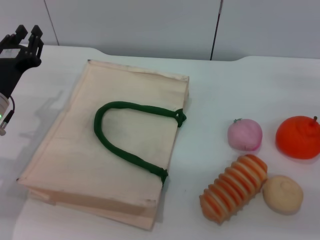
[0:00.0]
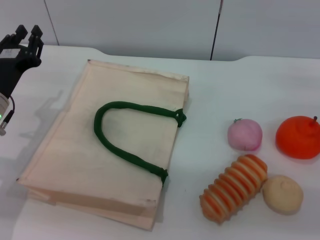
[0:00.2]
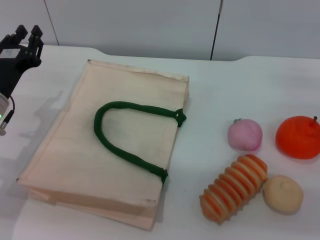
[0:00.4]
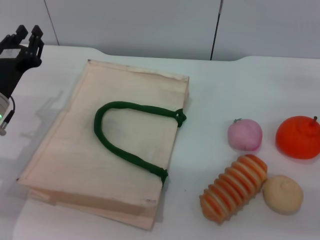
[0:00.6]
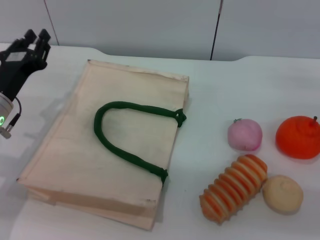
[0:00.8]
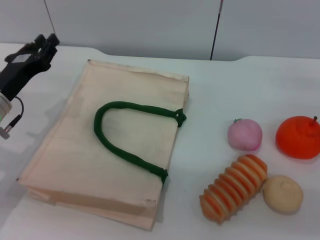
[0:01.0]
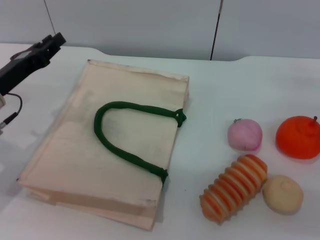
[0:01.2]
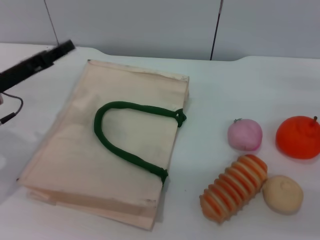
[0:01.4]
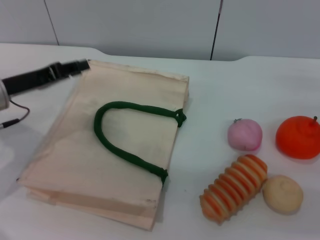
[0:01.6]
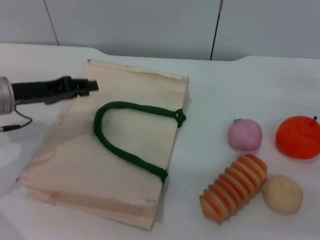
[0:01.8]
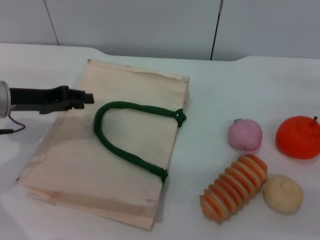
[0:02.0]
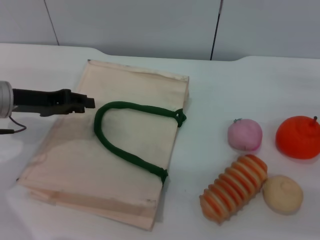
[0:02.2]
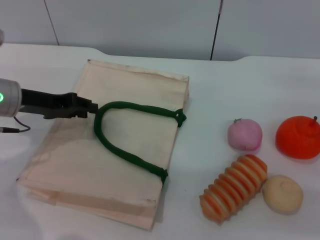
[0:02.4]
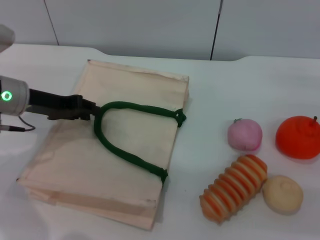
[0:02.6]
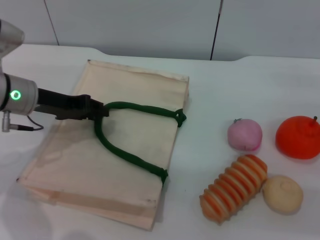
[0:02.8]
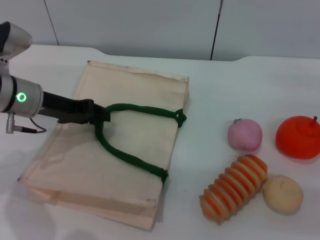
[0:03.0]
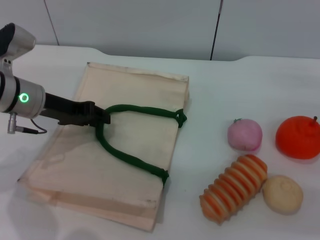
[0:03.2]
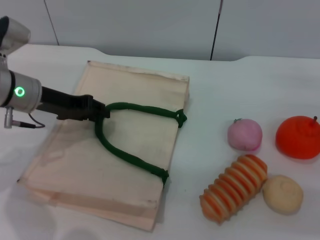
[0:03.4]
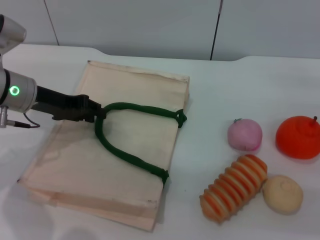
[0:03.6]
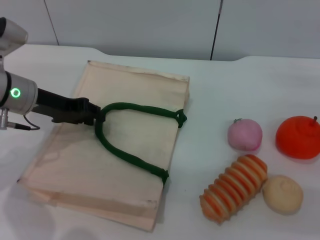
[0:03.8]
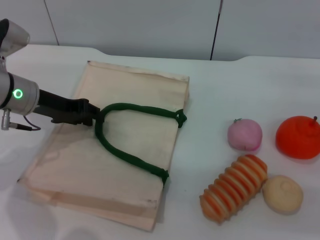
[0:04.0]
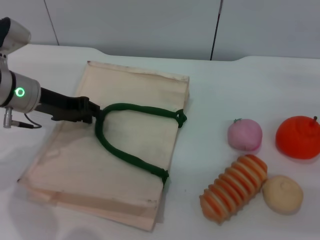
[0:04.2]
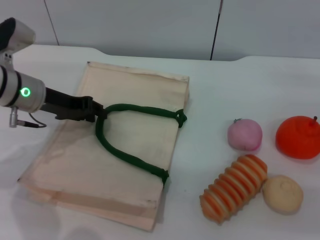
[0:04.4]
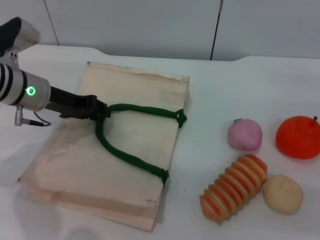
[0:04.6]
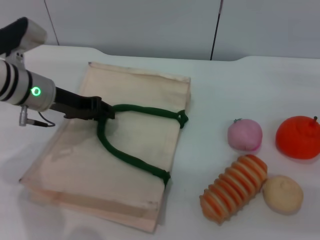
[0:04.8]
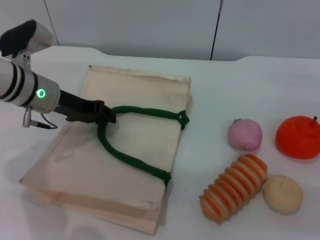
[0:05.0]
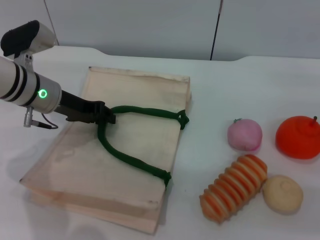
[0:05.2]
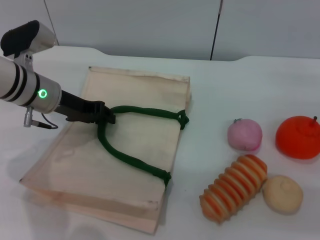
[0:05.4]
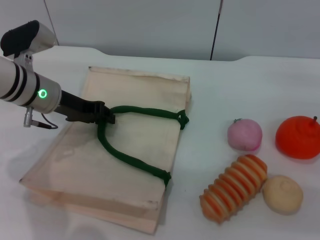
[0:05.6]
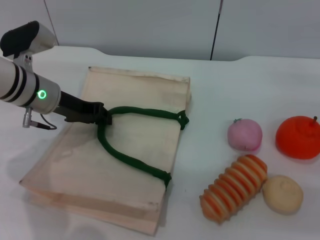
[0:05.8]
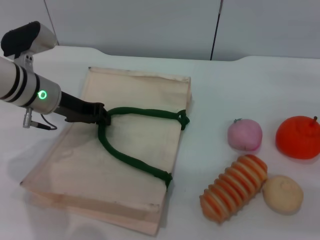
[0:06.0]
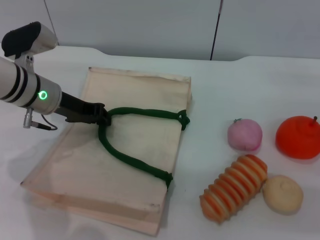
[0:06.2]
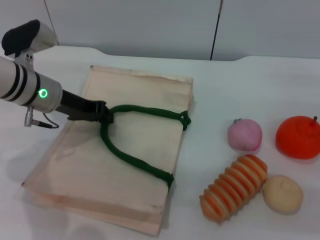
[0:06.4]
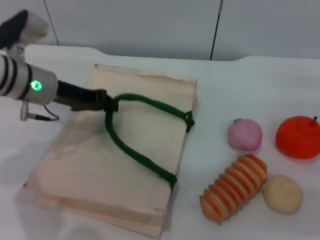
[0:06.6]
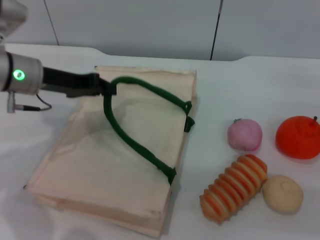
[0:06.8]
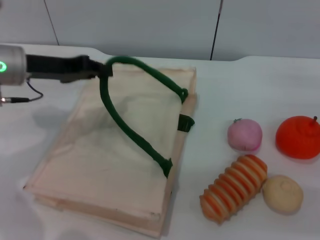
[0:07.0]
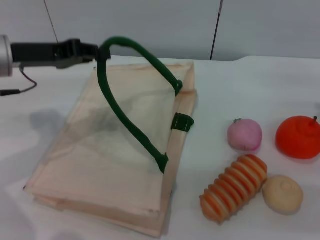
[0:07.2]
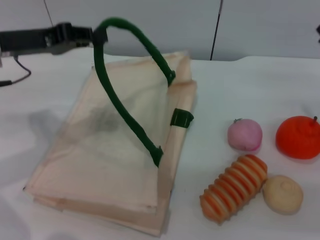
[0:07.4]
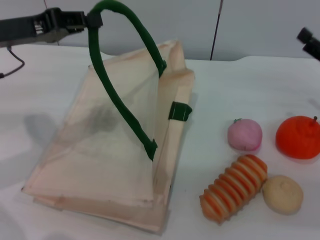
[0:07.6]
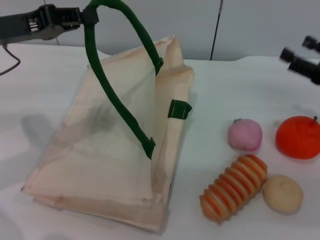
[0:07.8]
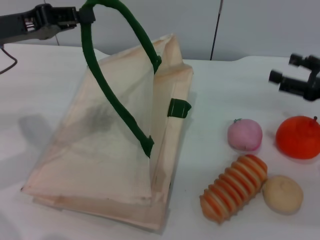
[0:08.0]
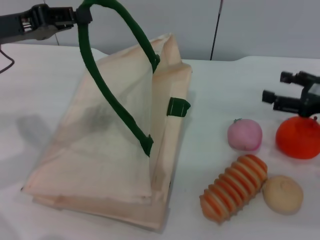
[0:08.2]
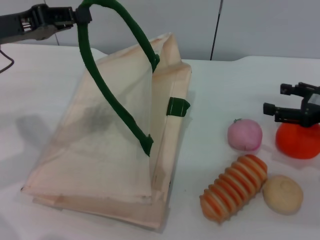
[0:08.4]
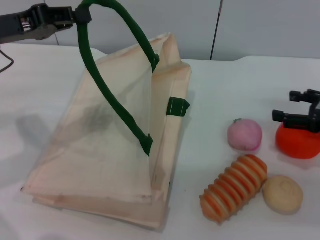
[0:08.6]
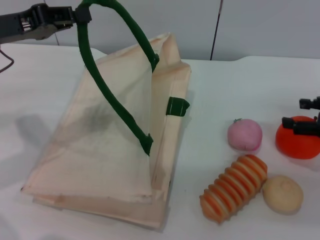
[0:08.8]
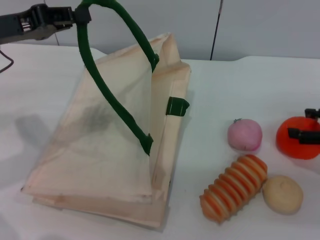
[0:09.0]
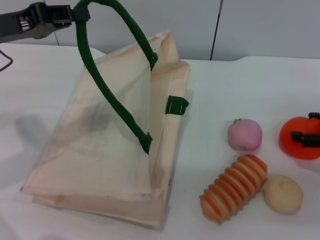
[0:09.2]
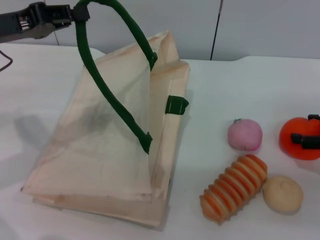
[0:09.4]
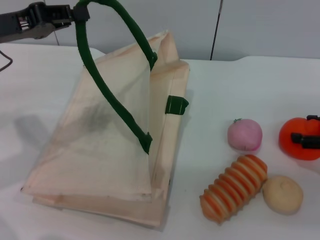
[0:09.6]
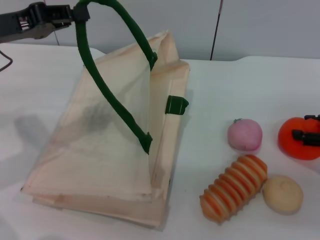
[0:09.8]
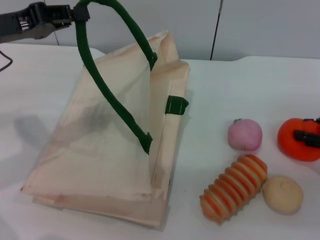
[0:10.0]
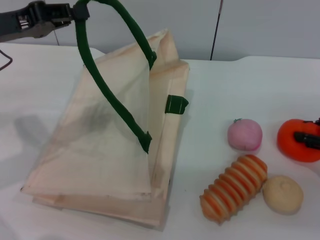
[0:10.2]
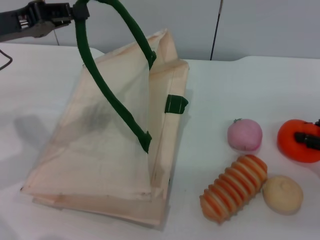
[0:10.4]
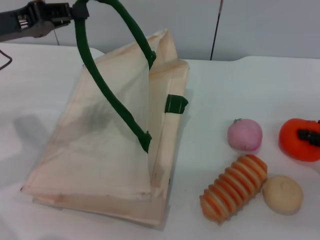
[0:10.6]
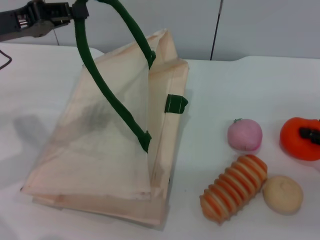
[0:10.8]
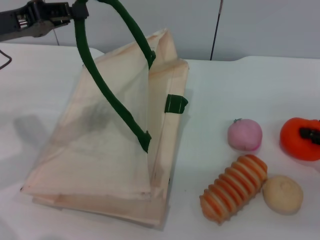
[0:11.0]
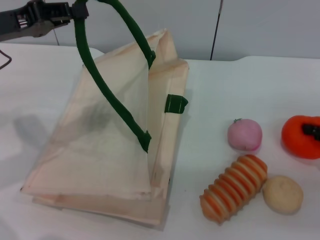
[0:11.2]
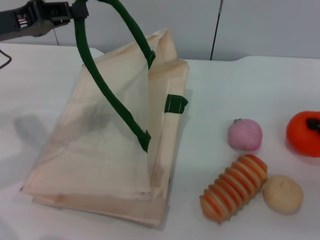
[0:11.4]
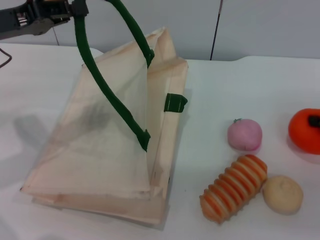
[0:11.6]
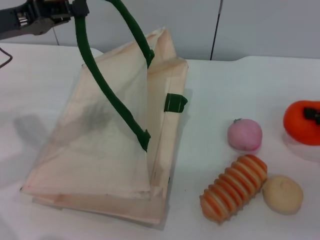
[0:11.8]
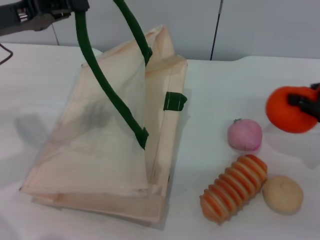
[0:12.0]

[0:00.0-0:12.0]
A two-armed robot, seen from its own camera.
Task of the whole recording: pick up the orange from the table and place it in the white handbag.
Step, 0:00.0 to 0:07.2: Lift the woven bag with the left gripper to open it.
0:00.0 to 0:01.6: The left gripper shifts by about 5 cm.
0:01.6 to 0:03.0: The left gripper changes place by approximately 5 cm.
0:03.0 to 0:04.4: Both grippers stay about where they are.
0:04.4 to 0:06.0: The left gripper closes up.
0:06.0 to 0:07.6: The left gripper heads upward and to the left, covering approximately 10 cm.
0:09.0 to 0:10.4: The right gripper closes up.
0:10.4 to 0:12.0: The grippers make only small movements.

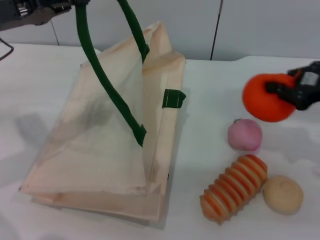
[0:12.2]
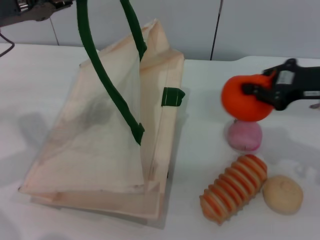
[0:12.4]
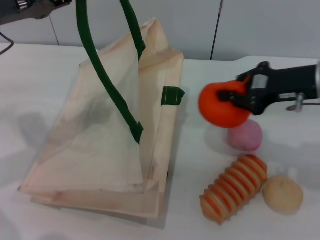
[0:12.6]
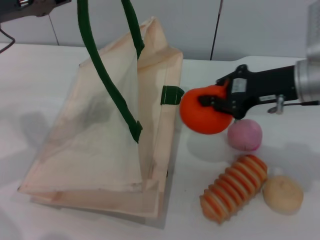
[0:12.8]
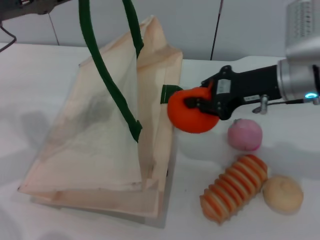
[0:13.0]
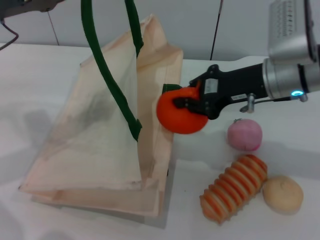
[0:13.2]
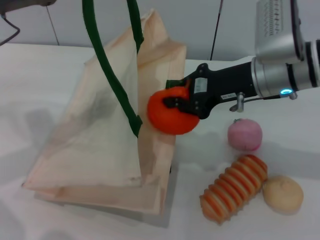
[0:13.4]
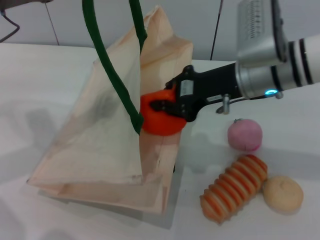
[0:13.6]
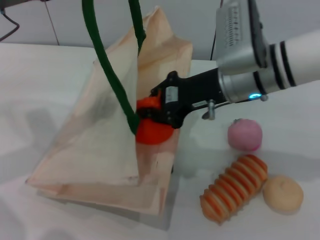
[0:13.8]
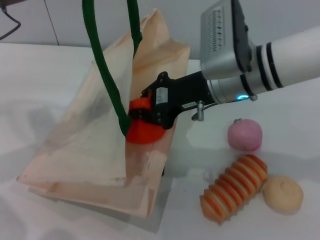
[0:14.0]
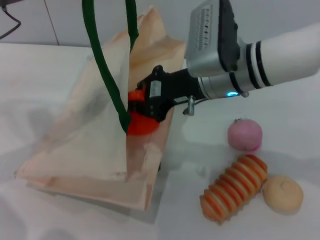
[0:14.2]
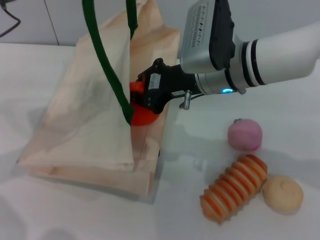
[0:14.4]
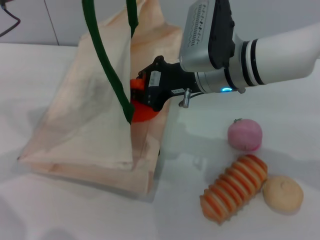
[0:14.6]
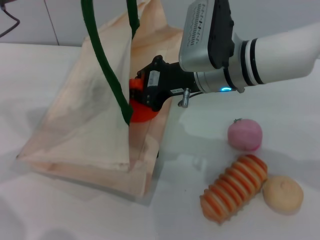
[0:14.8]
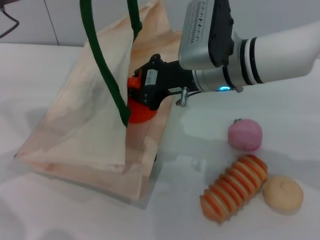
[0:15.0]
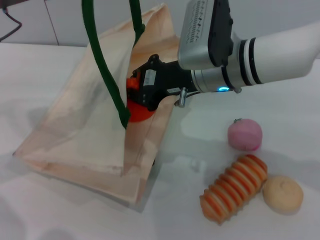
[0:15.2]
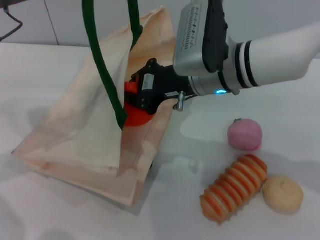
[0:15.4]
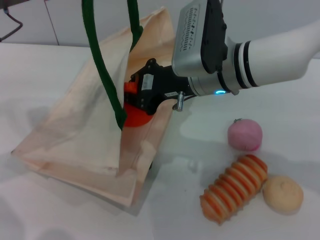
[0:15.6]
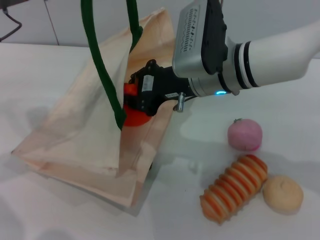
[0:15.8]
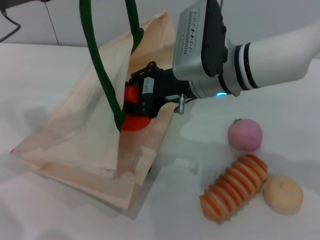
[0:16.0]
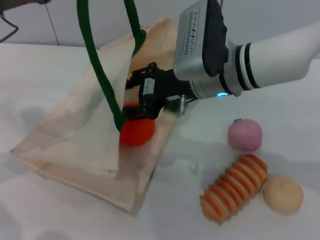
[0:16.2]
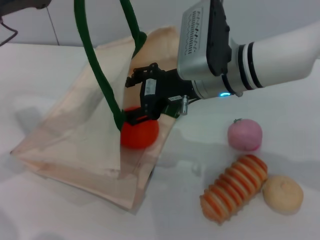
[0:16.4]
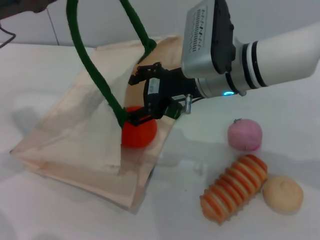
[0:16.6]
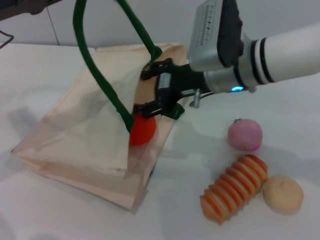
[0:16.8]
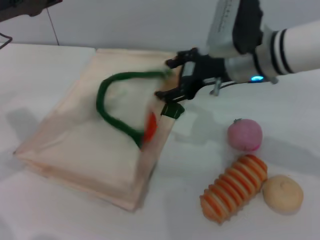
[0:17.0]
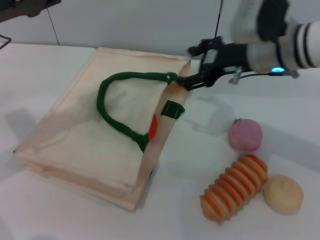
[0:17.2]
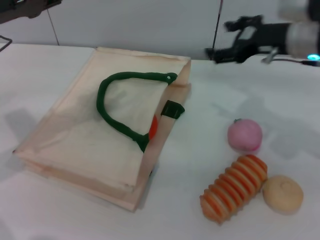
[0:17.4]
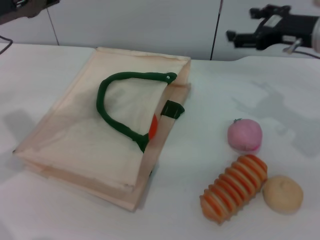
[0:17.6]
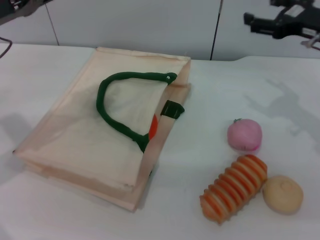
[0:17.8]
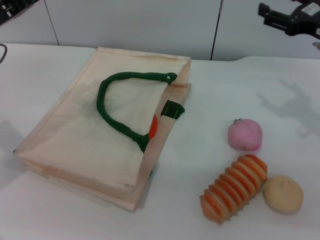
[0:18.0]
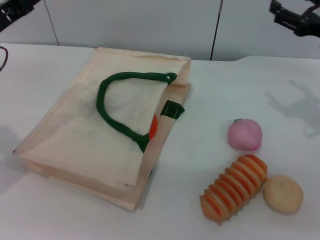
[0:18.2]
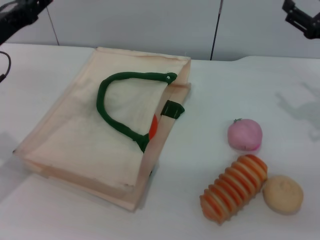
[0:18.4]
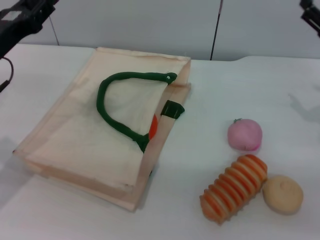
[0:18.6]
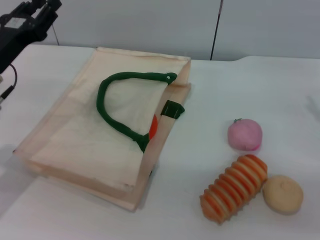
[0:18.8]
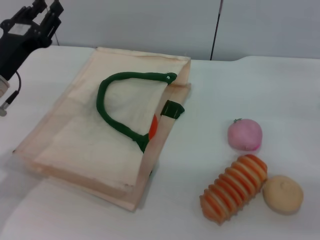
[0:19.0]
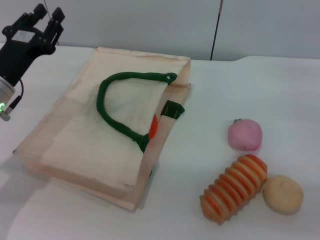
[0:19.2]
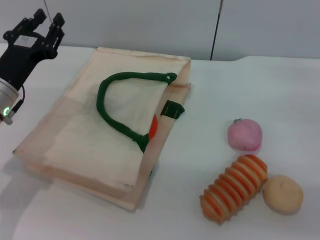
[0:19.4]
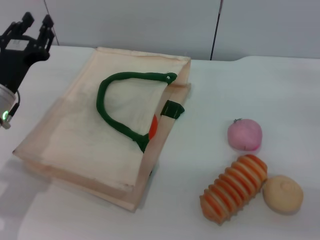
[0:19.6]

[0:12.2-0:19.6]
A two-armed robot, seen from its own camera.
Task of the whole recording: pick up the orange from the table and place it in the white handbag.
Step, 0:12.2 to 0:17.0: Place the orange into the woven bag with the right gripper.
Step, 0:17.2 to 0:18.6: Lower the woven bag with the left gripper to close it.
0:12.2 to 0:13.6: The right gripper is displaced to the left by roughly 15 cm.
0:13.6 to 0:15.2: The right gripper shifts some 5 cm to the left.
0:15.2 to 0:16.6: The right gripper opens.
0:16.6 to 0:18.2: The left gripper is displaced downward by about 5 cm, and opens. The right gripper heads to the right, covering approximately 20 cm.
0:18.2 to 0:19.6: The right gripper goes about 10 cm to the right, downward and backward; the left gripper heads downward, covering about 10 cm.
